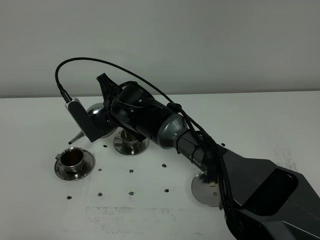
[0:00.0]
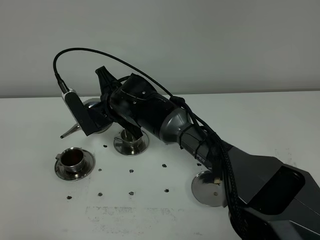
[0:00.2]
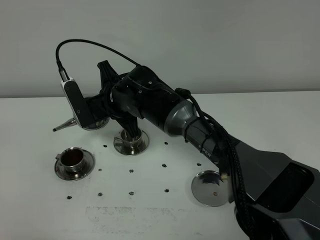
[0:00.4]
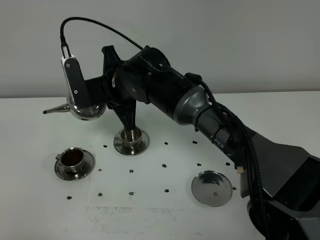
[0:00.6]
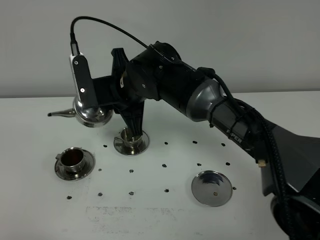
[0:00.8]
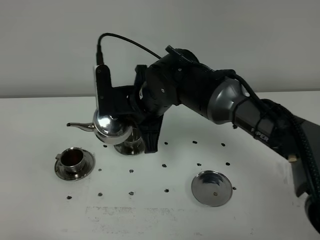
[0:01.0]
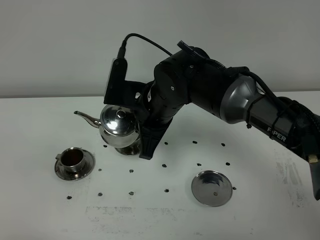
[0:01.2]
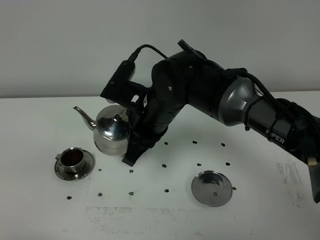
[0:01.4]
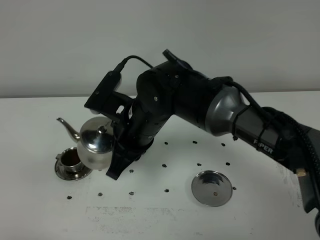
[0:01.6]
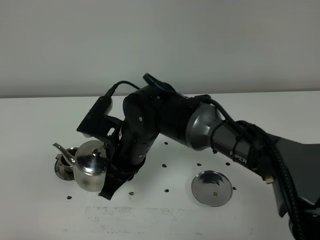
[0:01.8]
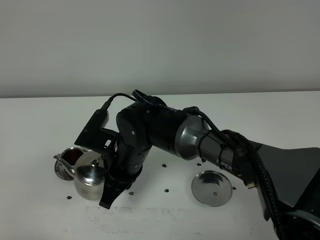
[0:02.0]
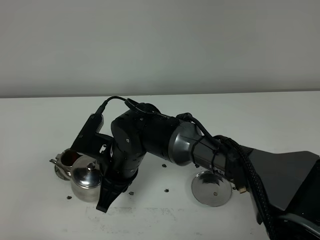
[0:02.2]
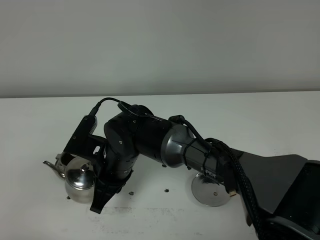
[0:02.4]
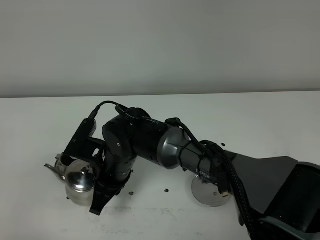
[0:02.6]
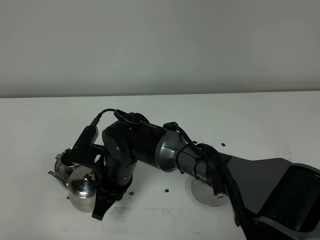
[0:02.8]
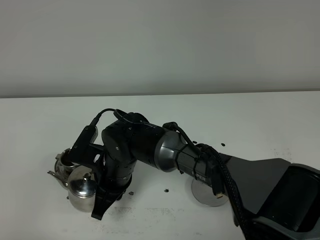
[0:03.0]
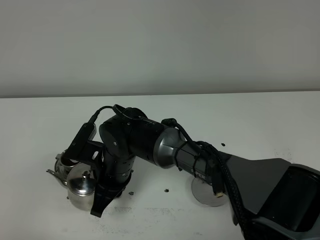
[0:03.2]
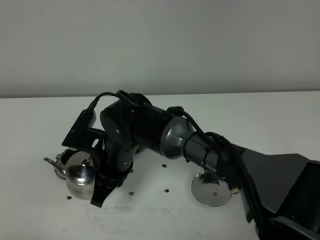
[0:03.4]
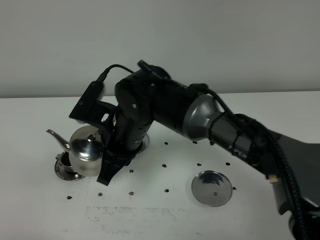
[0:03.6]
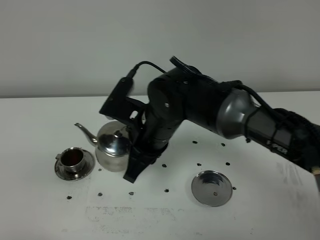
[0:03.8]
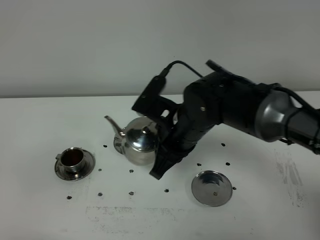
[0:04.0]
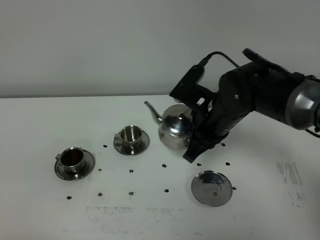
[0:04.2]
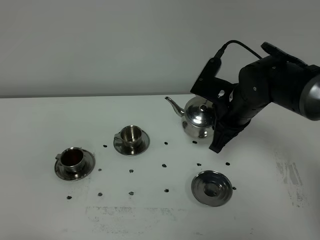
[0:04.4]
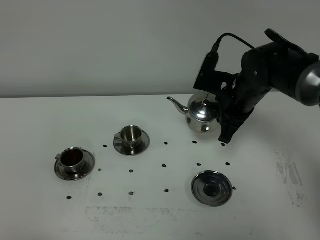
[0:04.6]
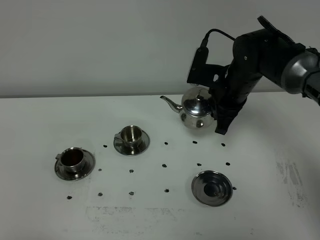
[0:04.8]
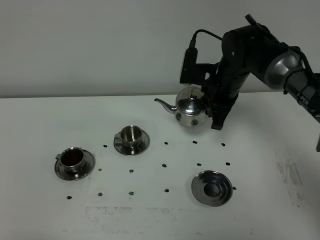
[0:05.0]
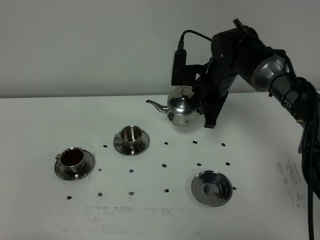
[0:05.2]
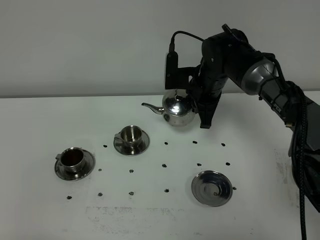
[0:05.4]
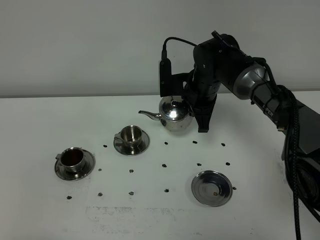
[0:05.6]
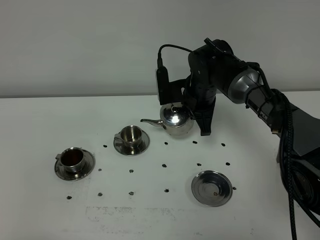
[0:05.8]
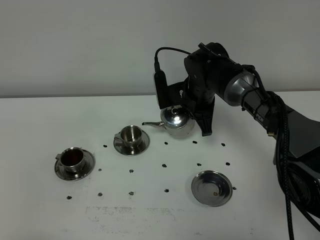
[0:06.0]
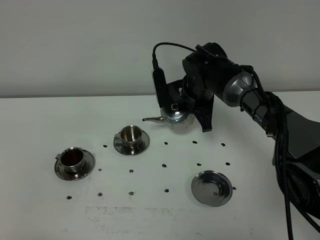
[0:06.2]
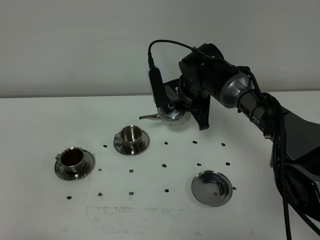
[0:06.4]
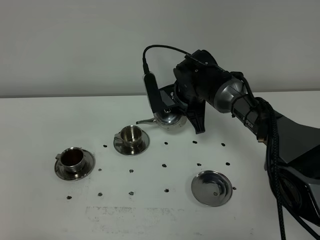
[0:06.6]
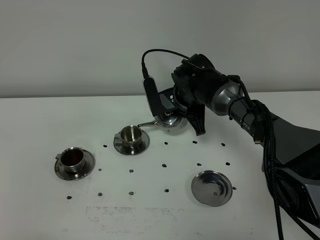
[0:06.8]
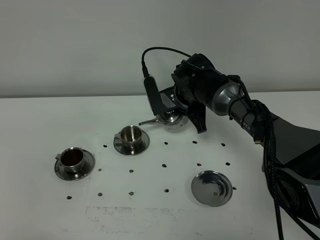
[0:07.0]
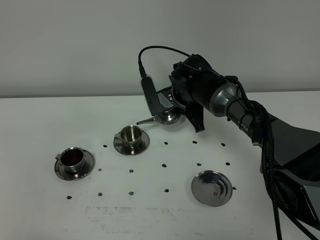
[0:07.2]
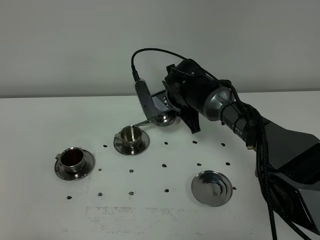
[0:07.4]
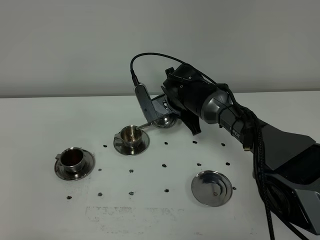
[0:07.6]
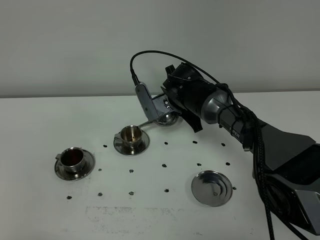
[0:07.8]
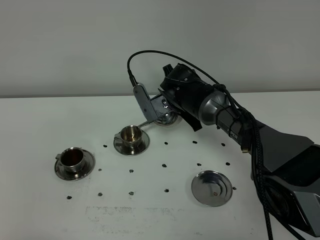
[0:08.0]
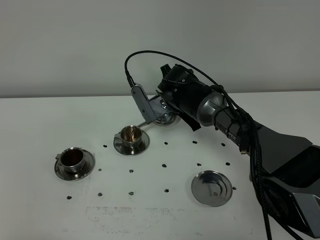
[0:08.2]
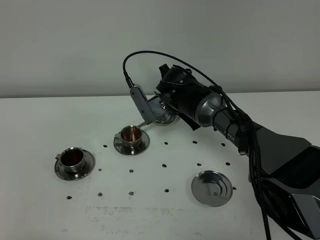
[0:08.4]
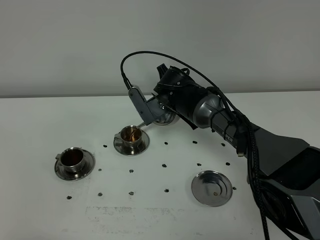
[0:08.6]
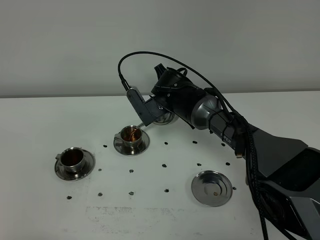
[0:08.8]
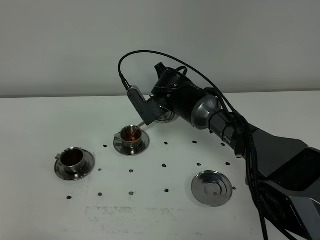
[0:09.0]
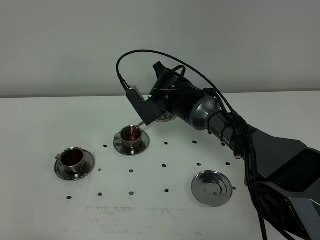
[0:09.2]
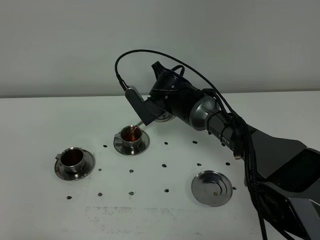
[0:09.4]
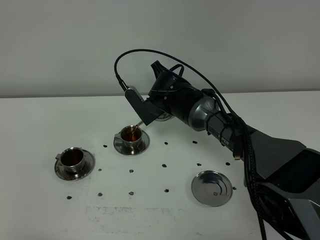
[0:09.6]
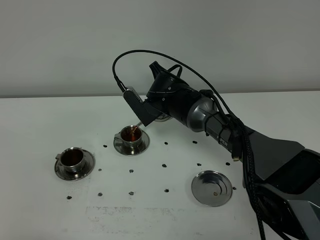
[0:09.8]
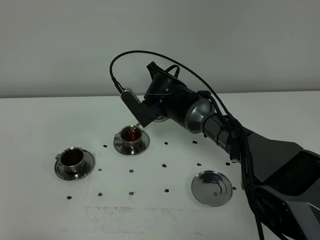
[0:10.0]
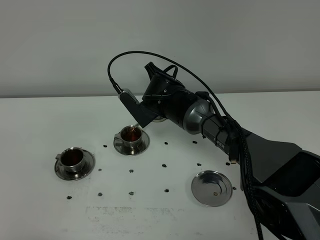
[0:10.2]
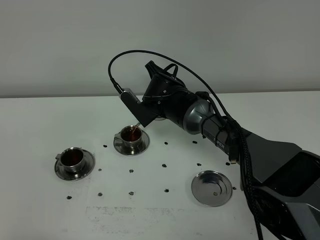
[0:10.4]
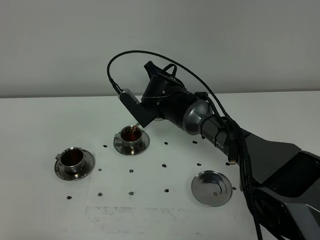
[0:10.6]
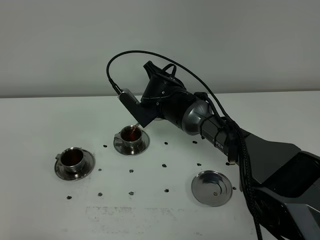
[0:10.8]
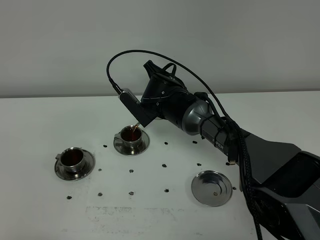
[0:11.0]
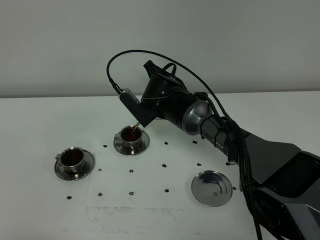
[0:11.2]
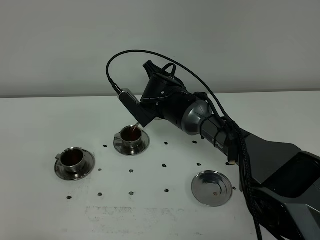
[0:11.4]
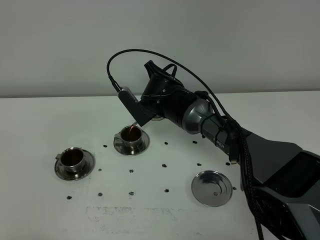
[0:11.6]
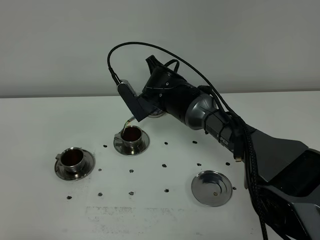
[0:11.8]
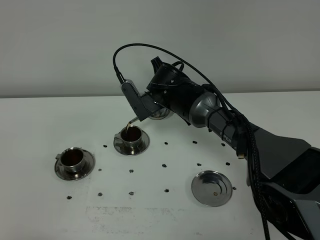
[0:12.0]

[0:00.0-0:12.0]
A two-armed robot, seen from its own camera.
Task of the whole recording: grasp the stainless steel teapot and pour the tea into the two stainless steel teacups one by one, put the stainless steel teapot back in its original place.
0:00.0 to 0:01.6: The right gripper moves backward, upward and to the right, approximately 10 cm.
0:01.6 to 0:03.0: The right gripper shifts some 10 cm downward.
0:03.0 to 0:04.4: The right gripper heads to the right and forward, covering approximately 25 cm.
0:04.4 to 0:06.0: The right gripper goes approximately 10 cm forward and to the left.
0:06.0 to 0:07.6: The grippers move only a little.
0:07.6 to 0:09.0: There are only small adjustments of the grippers.
0:09.0 to 0:12.0: There are only small adjustments of the grippers.

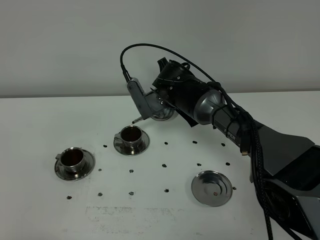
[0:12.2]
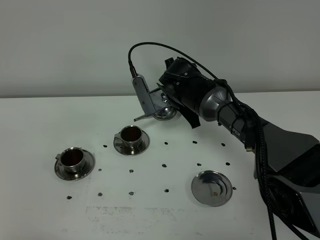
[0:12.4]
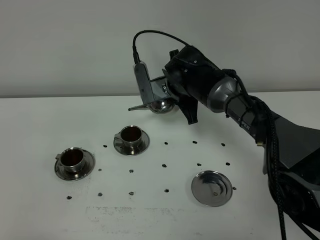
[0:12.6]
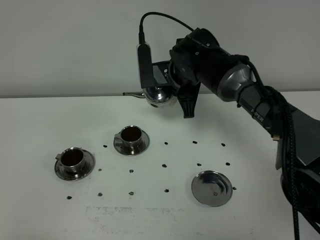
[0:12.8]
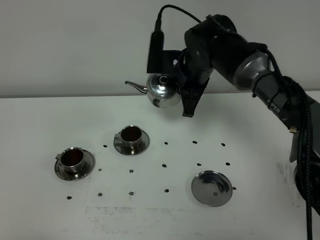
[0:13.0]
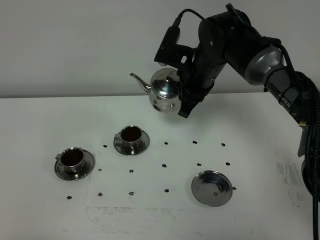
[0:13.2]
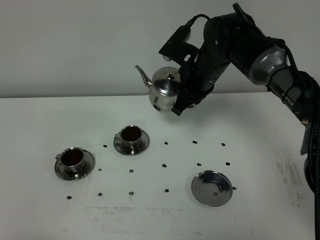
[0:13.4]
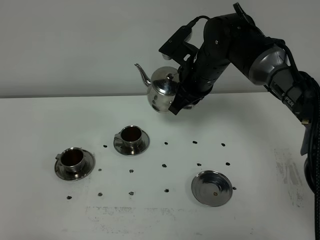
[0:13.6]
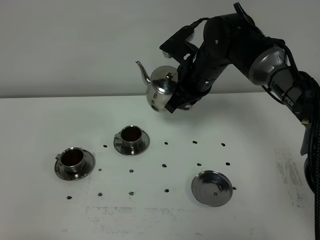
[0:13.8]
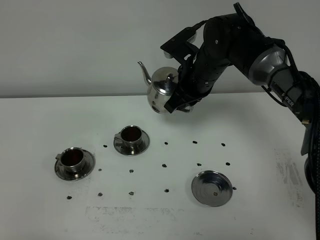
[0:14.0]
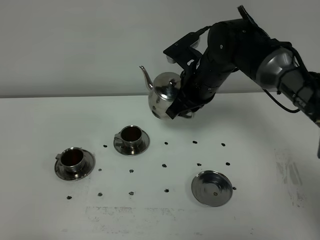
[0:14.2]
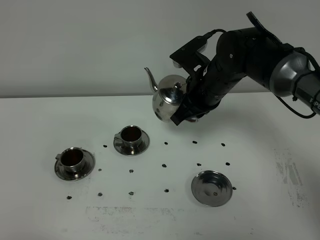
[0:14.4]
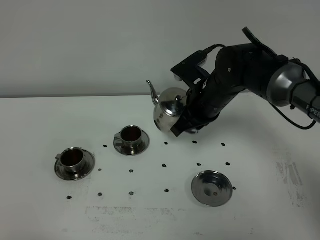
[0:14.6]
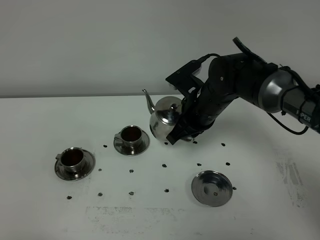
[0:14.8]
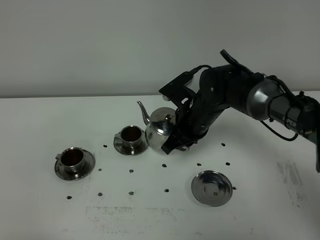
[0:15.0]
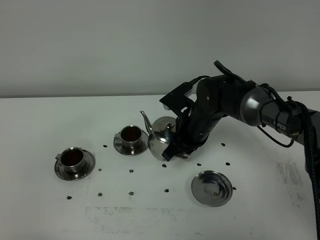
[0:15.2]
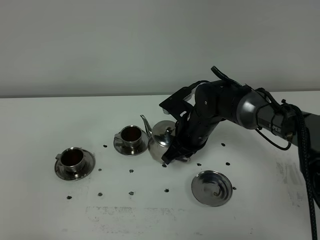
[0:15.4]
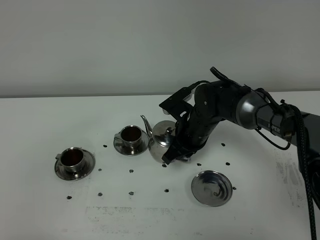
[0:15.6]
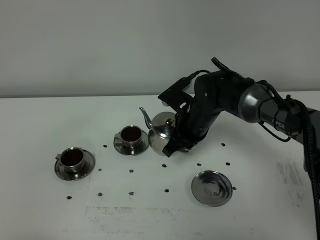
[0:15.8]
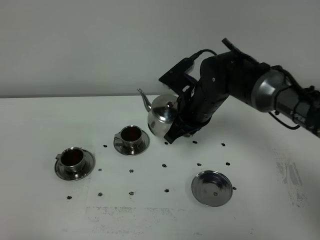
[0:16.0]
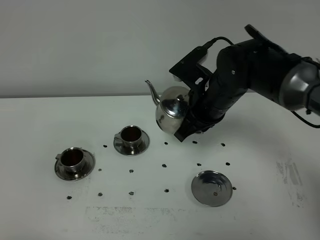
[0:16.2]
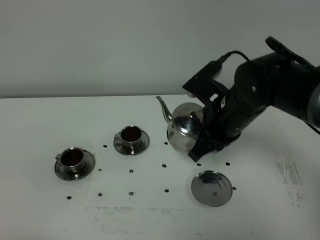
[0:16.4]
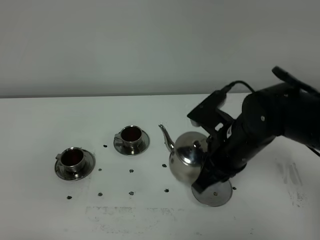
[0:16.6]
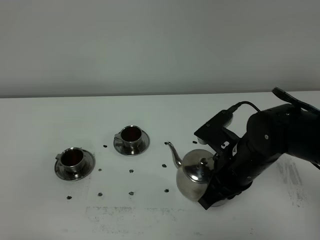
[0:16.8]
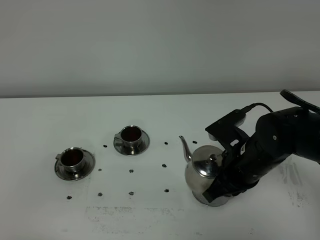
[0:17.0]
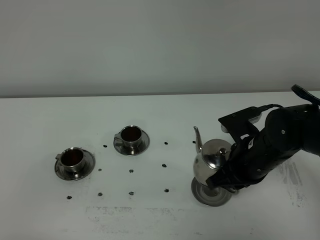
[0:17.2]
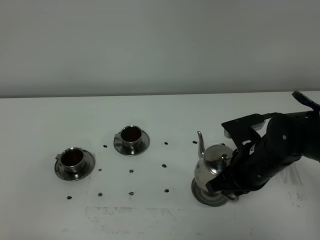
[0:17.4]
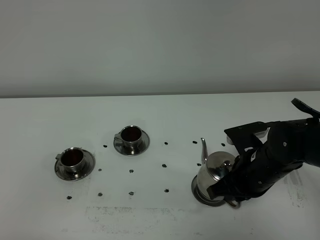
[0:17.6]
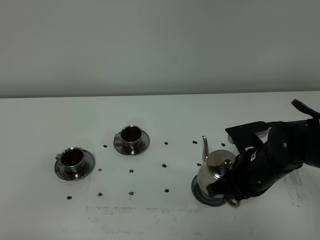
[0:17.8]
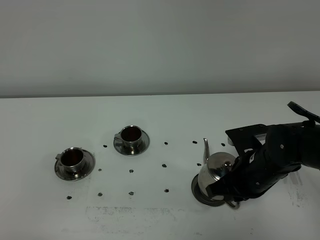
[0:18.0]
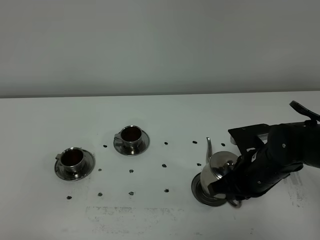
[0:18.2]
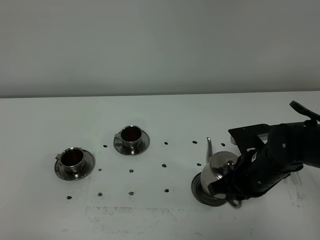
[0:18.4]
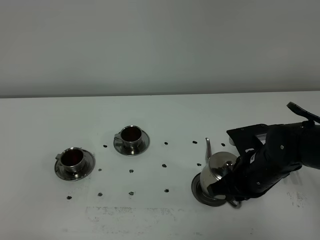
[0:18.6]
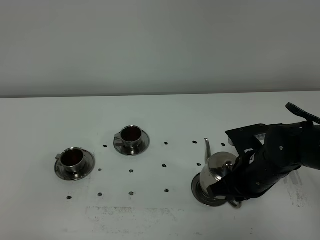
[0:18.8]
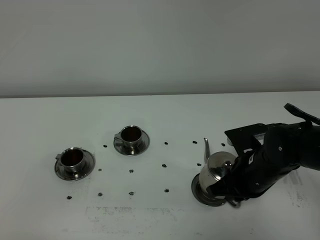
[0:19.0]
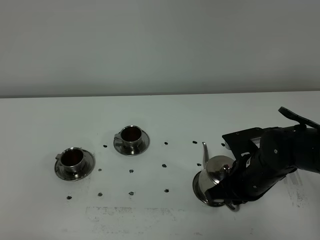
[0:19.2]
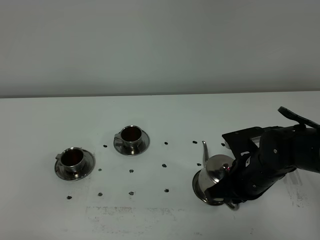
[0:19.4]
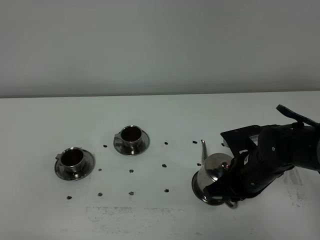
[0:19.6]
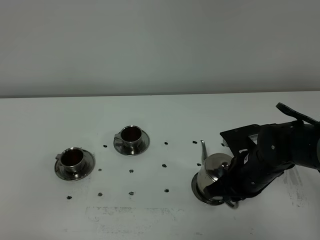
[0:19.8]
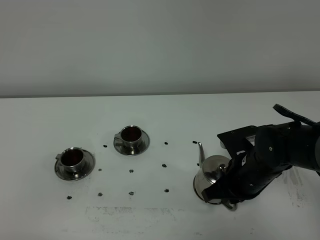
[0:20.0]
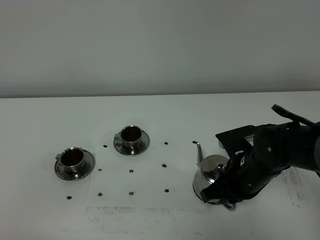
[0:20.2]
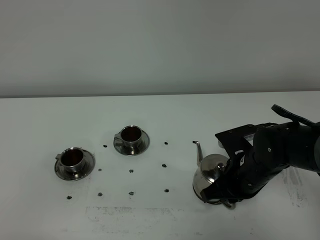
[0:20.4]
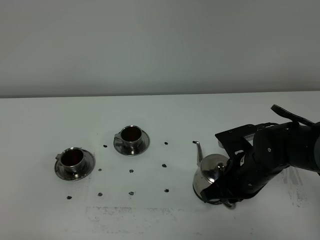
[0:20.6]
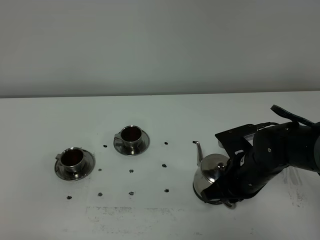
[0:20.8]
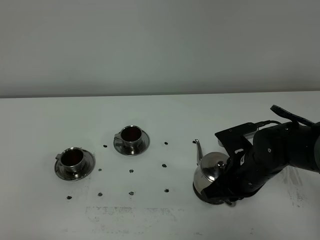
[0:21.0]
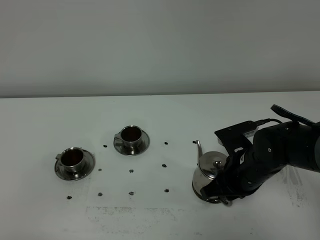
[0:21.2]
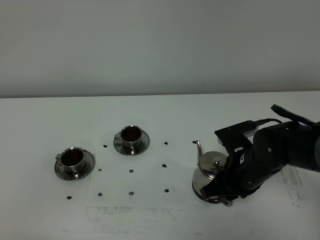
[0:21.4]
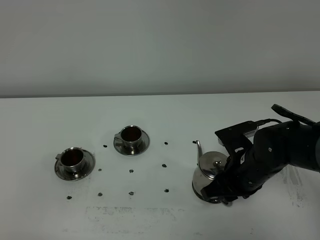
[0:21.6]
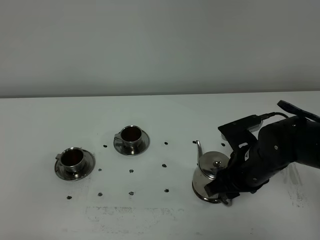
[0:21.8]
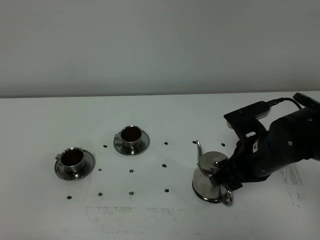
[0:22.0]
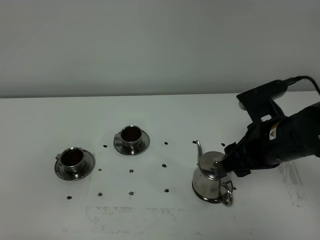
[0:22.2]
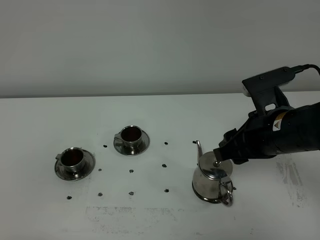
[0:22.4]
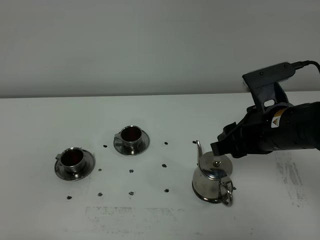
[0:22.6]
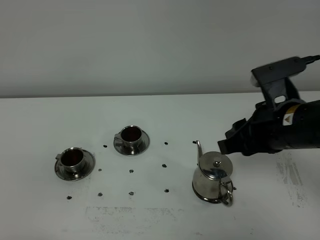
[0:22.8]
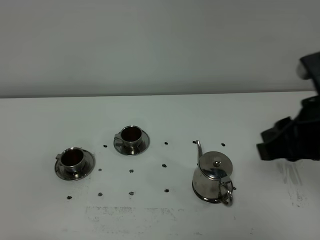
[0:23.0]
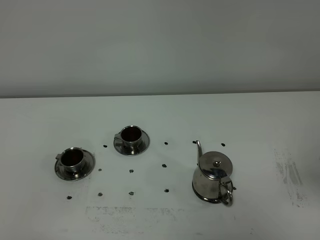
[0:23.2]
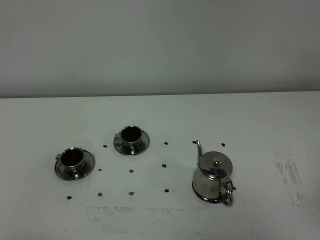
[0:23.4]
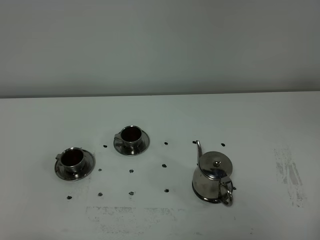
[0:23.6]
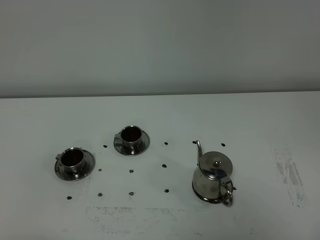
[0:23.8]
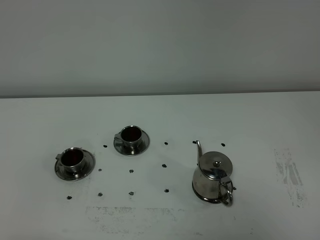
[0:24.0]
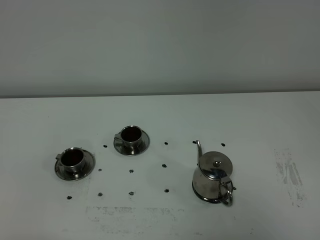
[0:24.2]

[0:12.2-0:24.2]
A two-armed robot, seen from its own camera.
Task of the whole recording: grasp the stainless steel teapot and pour the tea into the two stainless steel teacups one by one, put the stainless steel teapot back in its original place.
0:12.2 to 0:13.8: The right gripper travels upward and to the right by some 10 cm.
0:13.8 to 0:15.2: The right gripper goes approximately 10 cm downward.
0:15.2 to 0:16.6: The right gripper goes approximately 15 cm backward, upward and to the right.
0:16.6 to 0:18.2: The right gripper is displaced downward by roughly 5 cm.
0:18.2 to 0:19.8: Both grippers stay put.
0:19.8 to 0:21.2: The two grippers keep their place.
0:21.2 to 0:22.6: The right gripper goes approximately 10 cm upward, and opens up.
0:22.6 to 0:24.2: The right gripper is displaced backward and to the right by some 30 cm, and closes.
